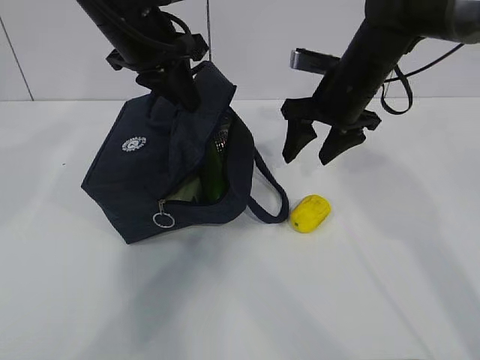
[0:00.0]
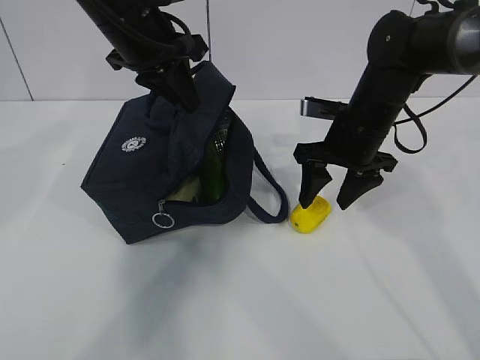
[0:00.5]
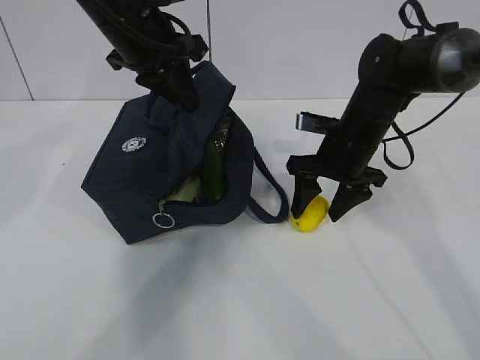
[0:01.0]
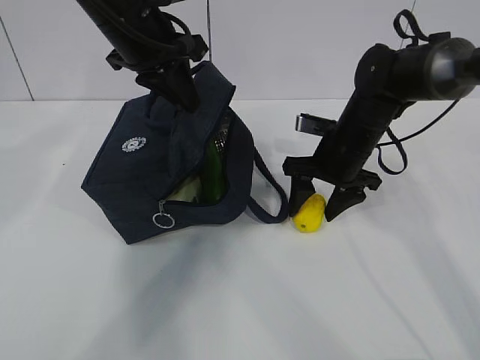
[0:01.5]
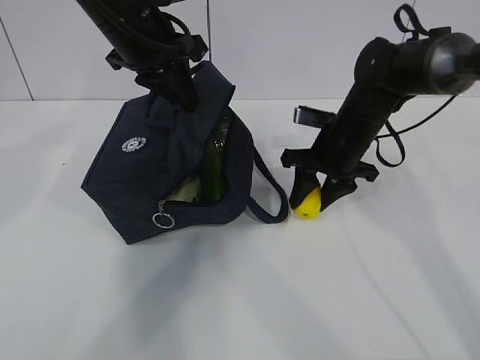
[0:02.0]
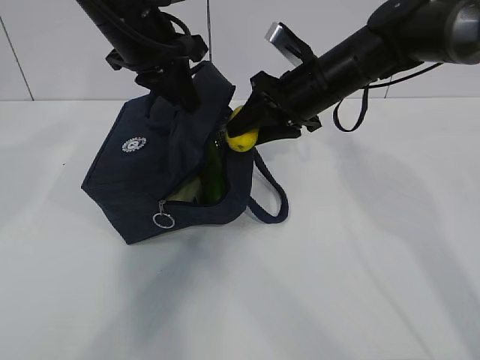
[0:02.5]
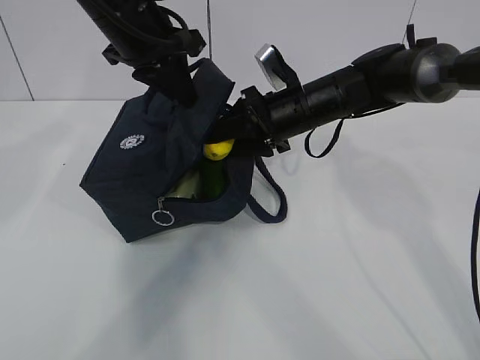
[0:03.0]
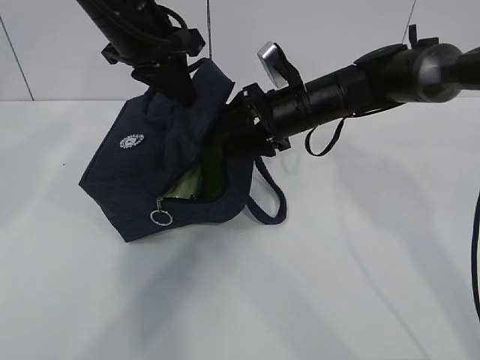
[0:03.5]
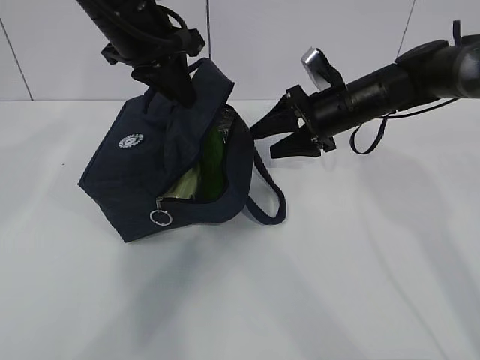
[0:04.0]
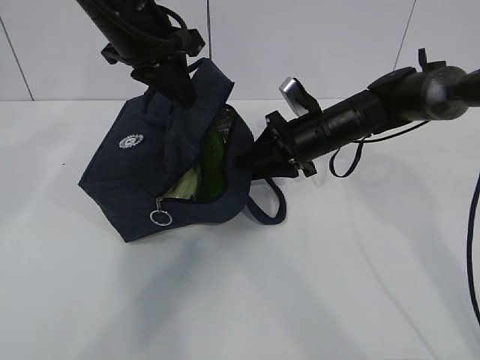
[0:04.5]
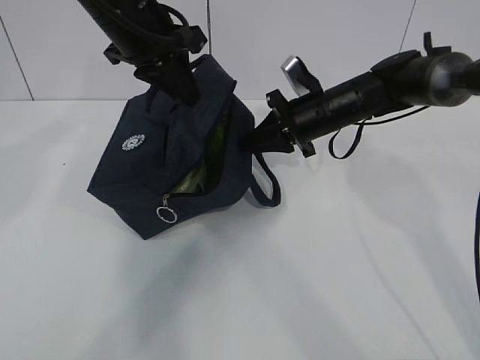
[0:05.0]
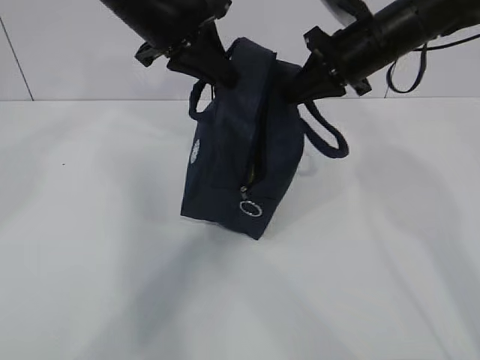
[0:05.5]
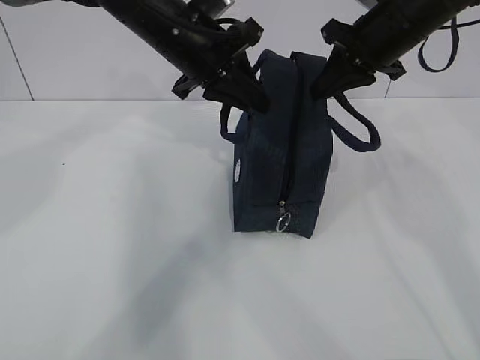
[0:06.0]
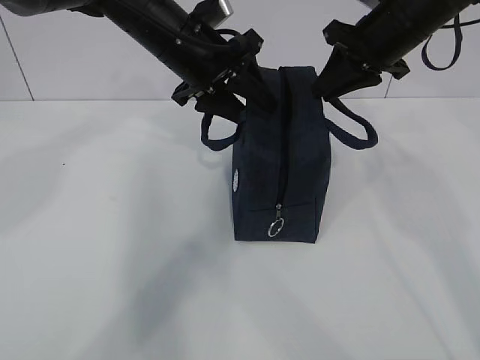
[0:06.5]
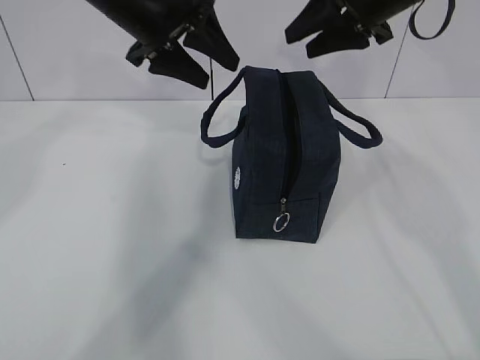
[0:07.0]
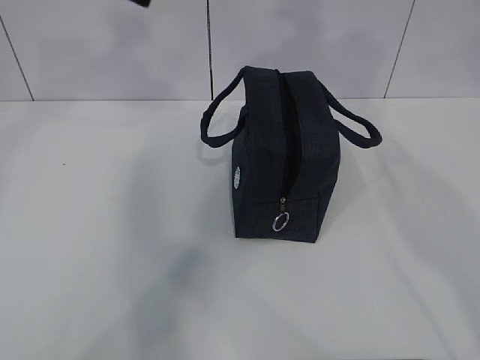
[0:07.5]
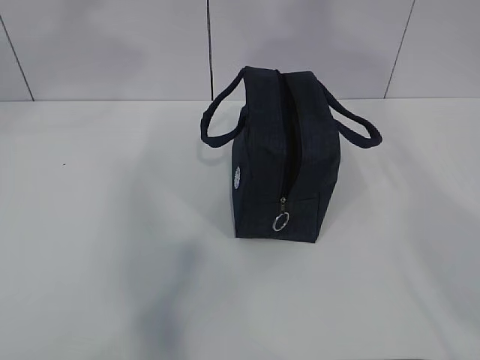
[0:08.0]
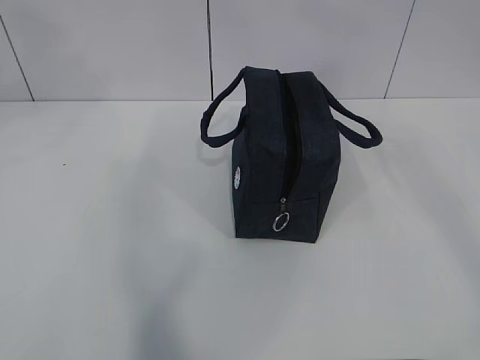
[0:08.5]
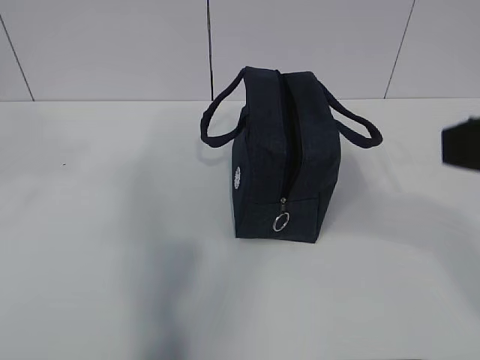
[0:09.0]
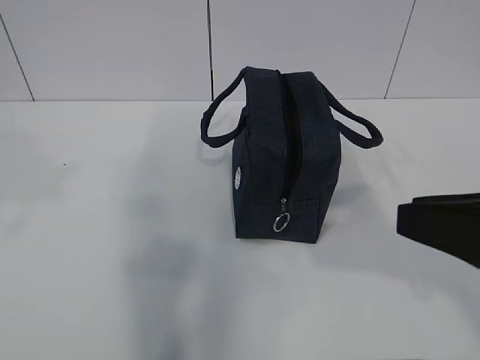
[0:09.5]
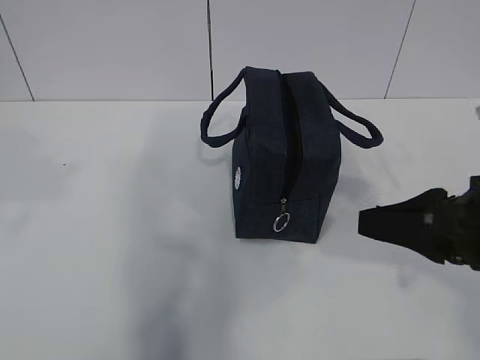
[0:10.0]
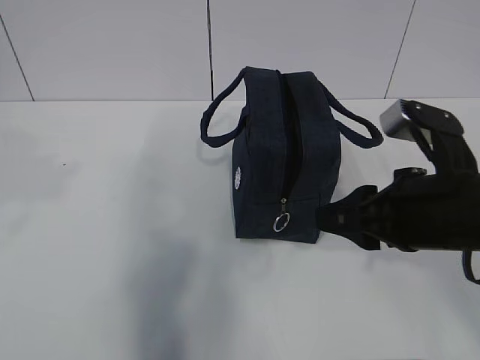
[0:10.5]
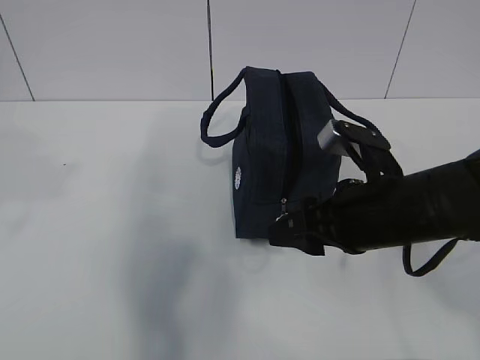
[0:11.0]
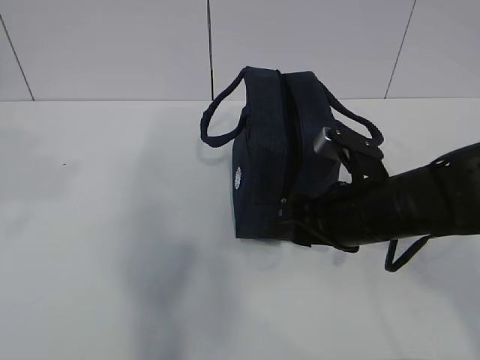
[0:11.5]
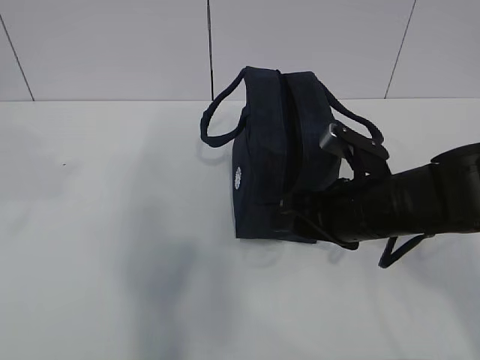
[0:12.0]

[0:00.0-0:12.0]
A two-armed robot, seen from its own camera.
Step, 0.0 to 1.0 s: Stand the lunch bag upright with your right hand.
0.0 to 2.0 s: The right gripper travels downward by about 5 cm.
4.0 to 6.0 s: The right gripper heads upward, covering roughly 10 cm, and closes up. Meanwhile the left gripper travels to the right by approximately 5 cm.
6.0 to 8.0 s: The left gripper moves upward, to the left and backward, about 25 cm, and opens. Meanwhile the right gripper heads upward and backward, covering roughly 30 cm, and opens.
8.0 to 10.0 s: The right gripper moves downward, some 30 cm.
10.0 to 12.0 s: The right gripper goes approximately 15 cm forward, downward and to the left, and opens.

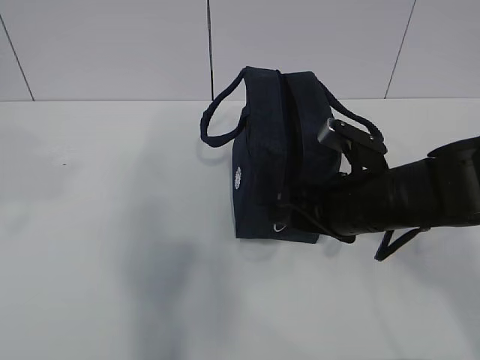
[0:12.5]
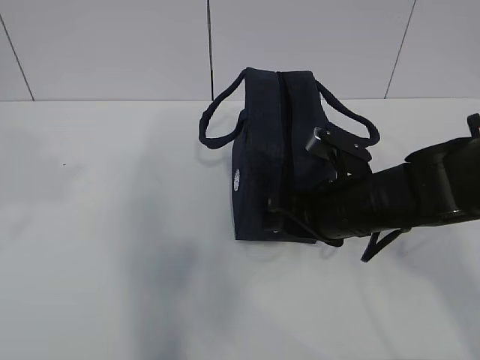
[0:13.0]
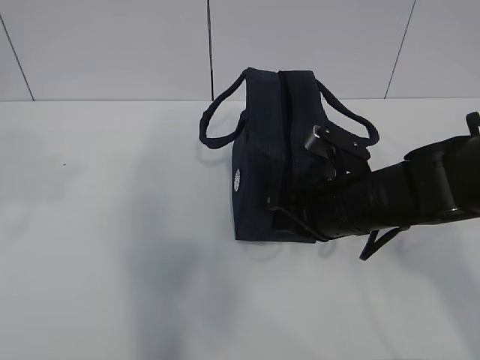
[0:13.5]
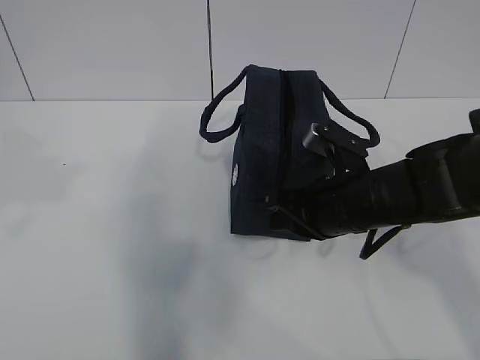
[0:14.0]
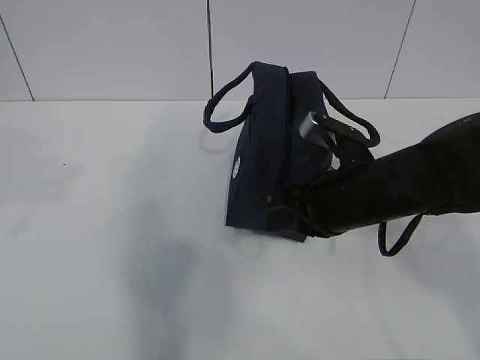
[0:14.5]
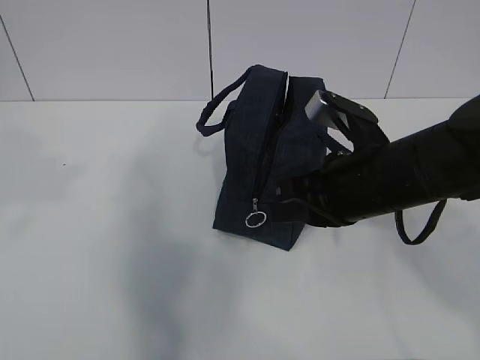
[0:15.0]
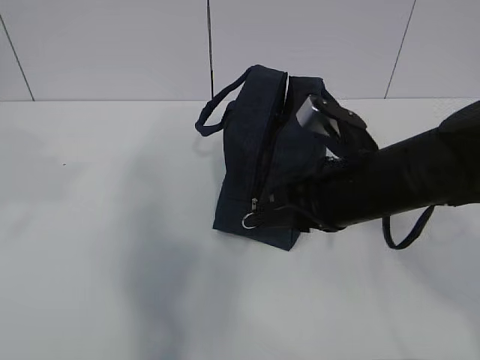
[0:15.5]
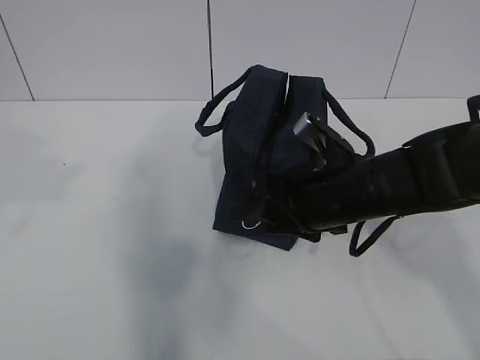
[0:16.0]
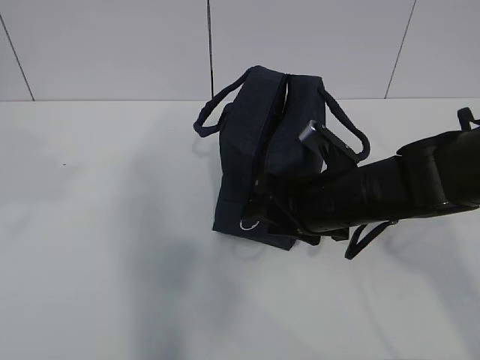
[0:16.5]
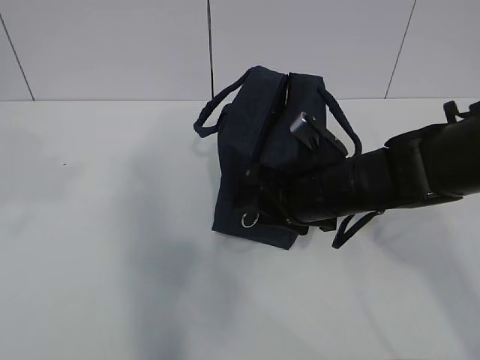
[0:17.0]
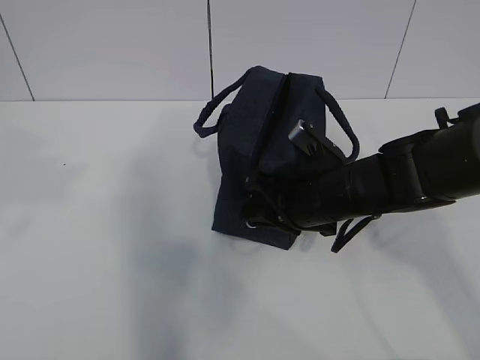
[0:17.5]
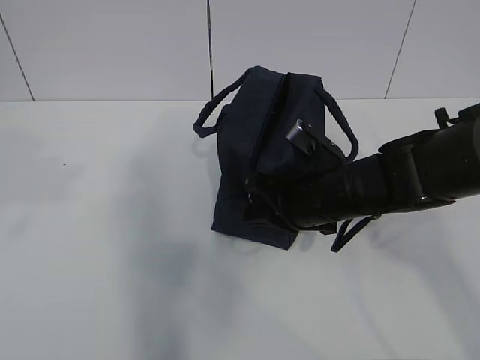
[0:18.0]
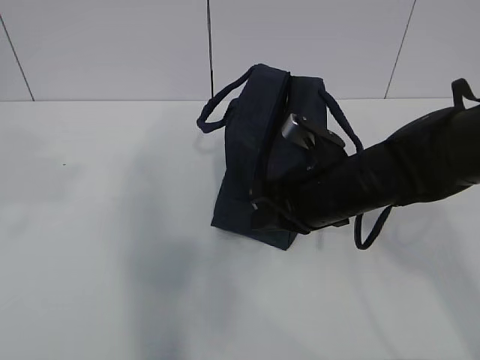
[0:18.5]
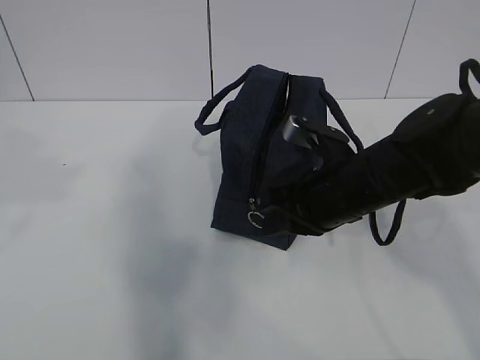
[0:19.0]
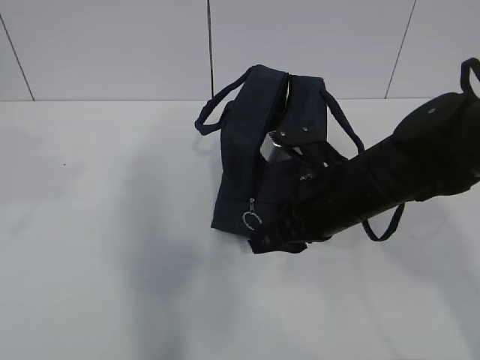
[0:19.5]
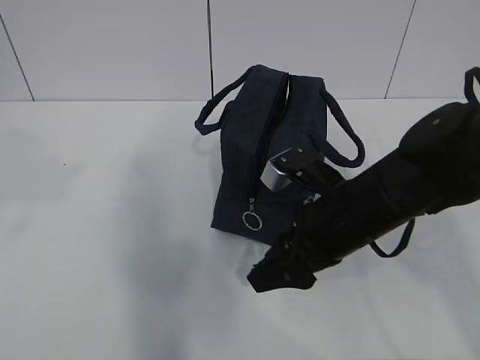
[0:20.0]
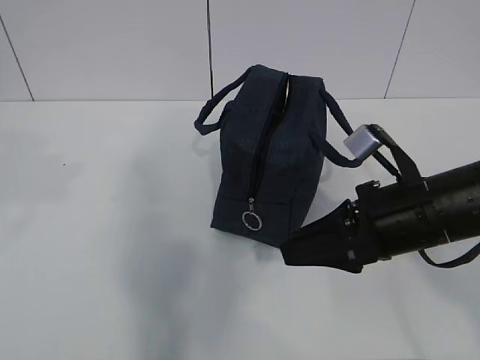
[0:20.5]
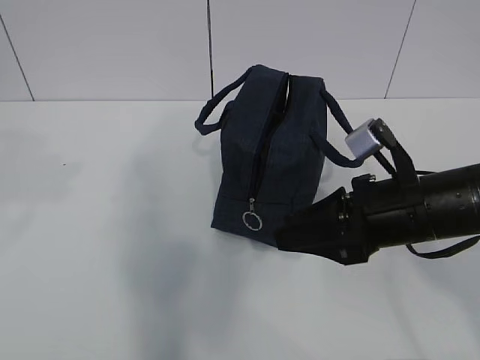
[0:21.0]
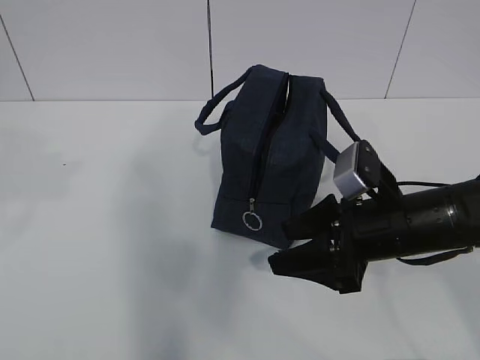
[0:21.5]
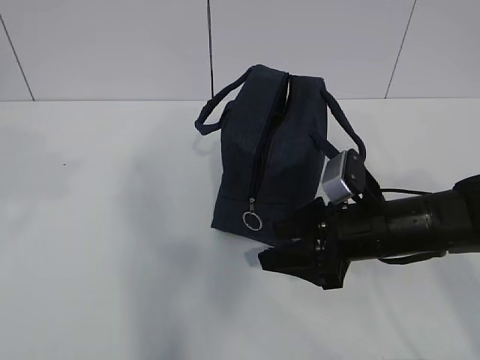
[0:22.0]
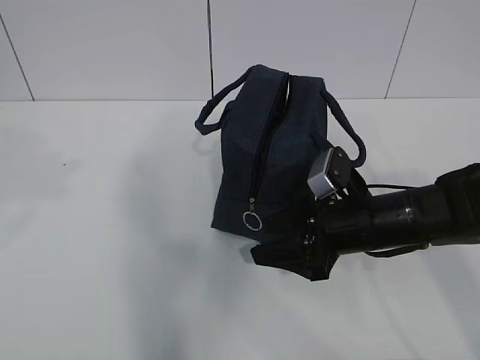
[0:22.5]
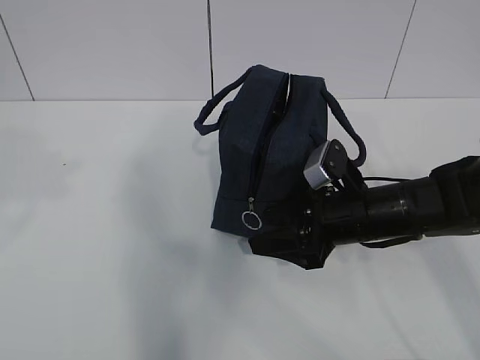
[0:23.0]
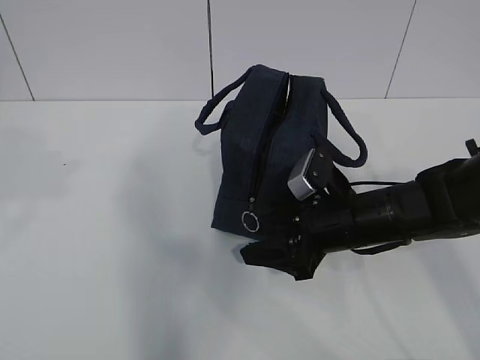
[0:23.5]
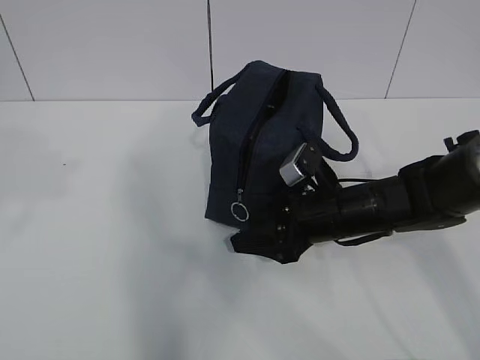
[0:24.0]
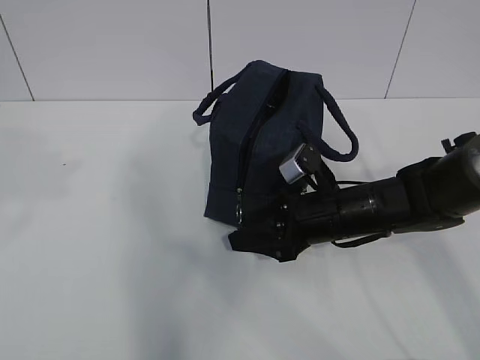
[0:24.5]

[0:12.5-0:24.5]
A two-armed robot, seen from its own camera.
12.5 to 14.5 s: The right gripper closes.
14.5 to 16.5 s: The right gripper opens its fingers.
16.5 to 18.5 s: The right gripper closes its fingers.
18.5 to 20.5 s: The right gripper moves backward and to the right, about 10 cm, and opens its fingers.
20.5 to 22.5 s: The right gripper goes roughly 10 cm downward and forward.
22.5 to 24.5 s: The grippers make only small movements.

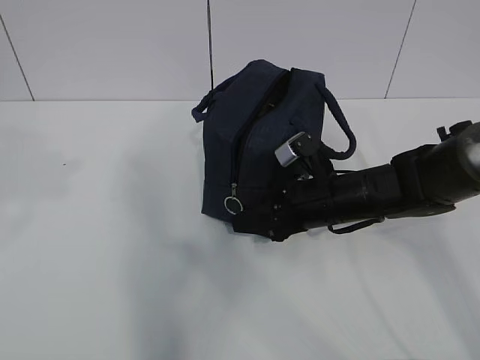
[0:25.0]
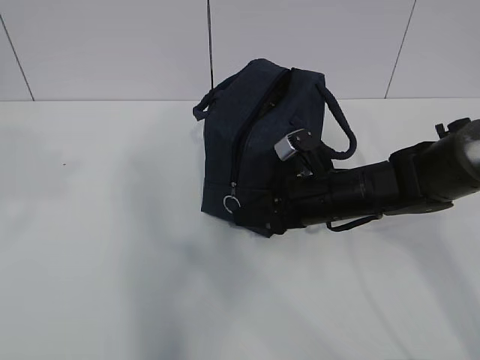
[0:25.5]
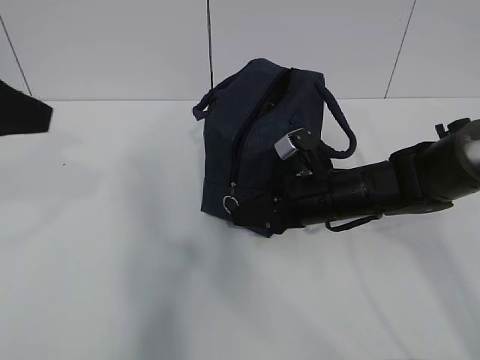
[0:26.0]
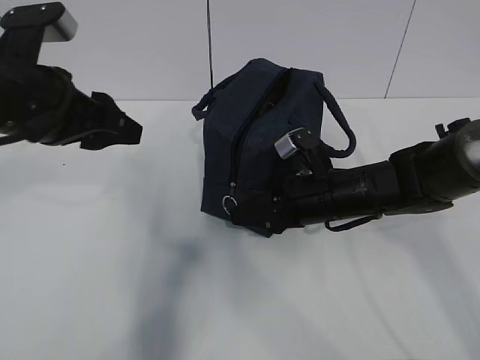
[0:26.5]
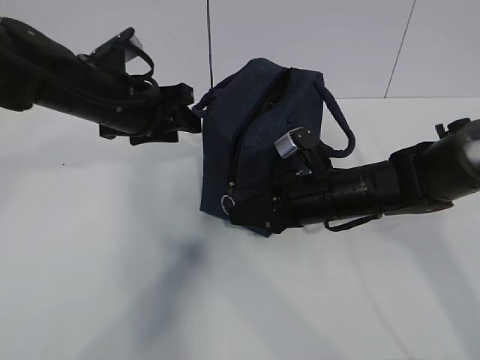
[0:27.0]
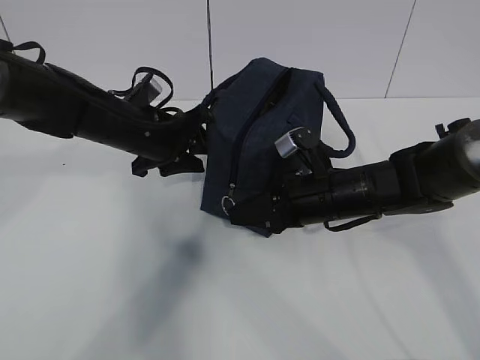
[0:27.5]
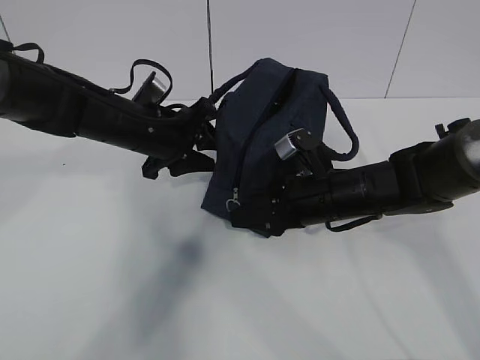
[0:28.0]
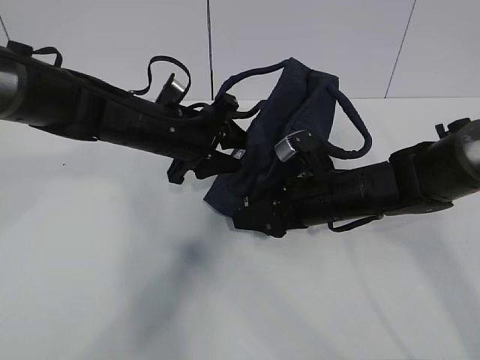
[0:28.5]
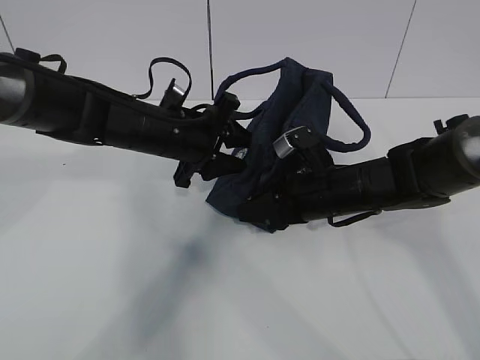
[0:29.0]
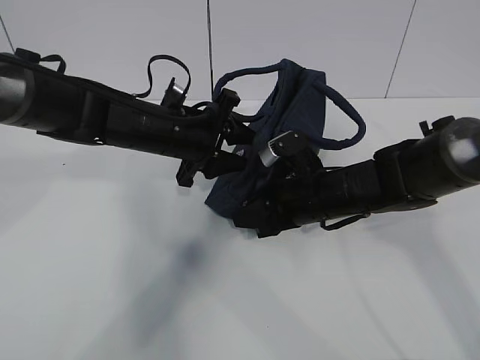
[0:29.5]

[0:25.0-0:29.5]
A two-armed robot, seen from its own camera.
Step, 25.0 to 27.5 s: Grab the lunch bag with your left hand.
25.0 to 27.0 s: The left gripper goes about 30 cm forward, downward and to the right.
27.0 to 29.5 s: The left gripper travels to the right by some 5 cm.
